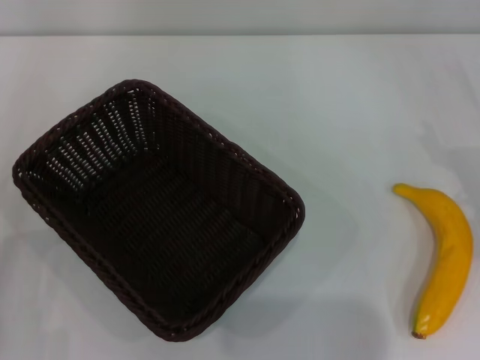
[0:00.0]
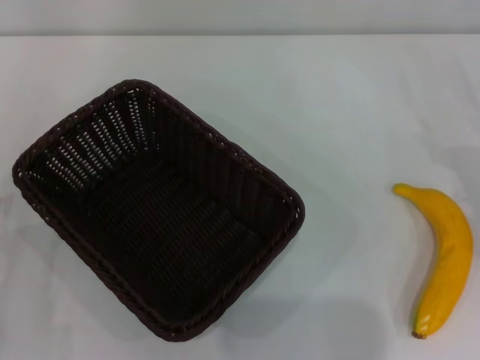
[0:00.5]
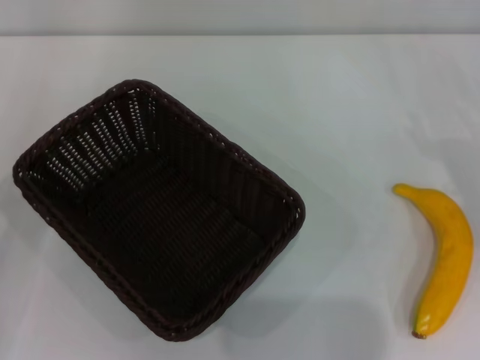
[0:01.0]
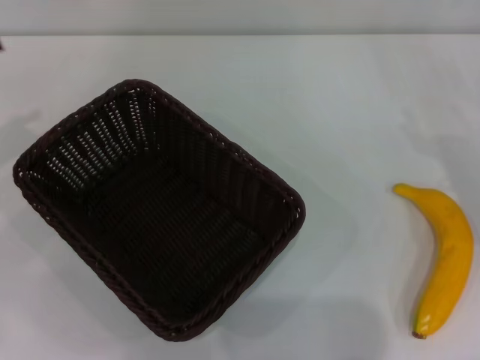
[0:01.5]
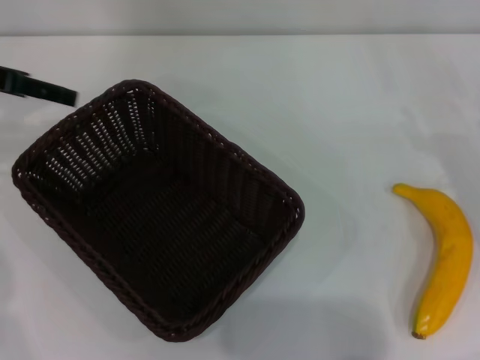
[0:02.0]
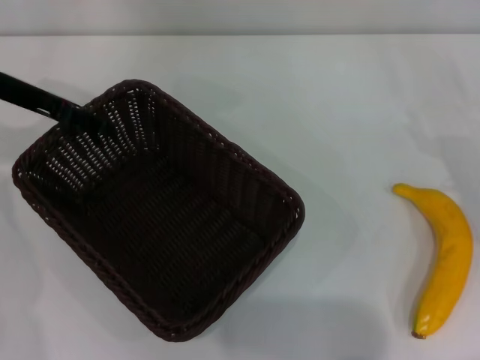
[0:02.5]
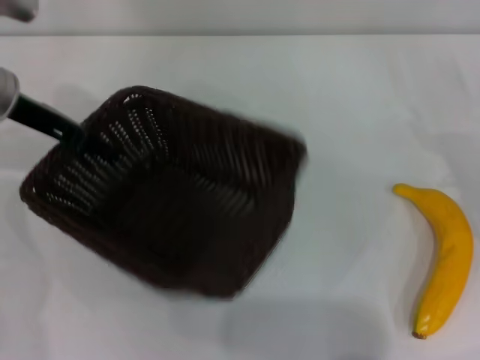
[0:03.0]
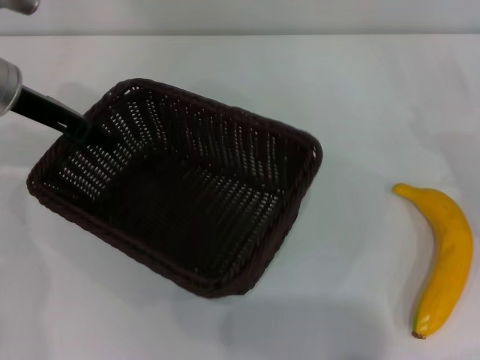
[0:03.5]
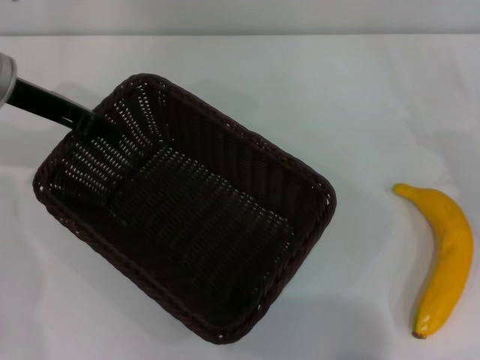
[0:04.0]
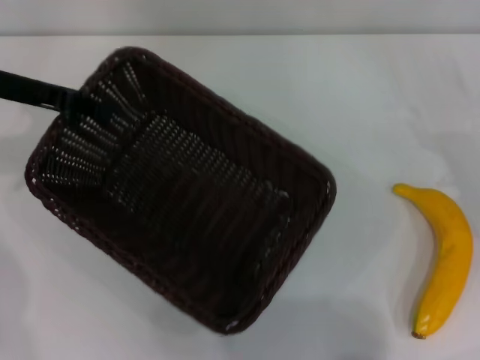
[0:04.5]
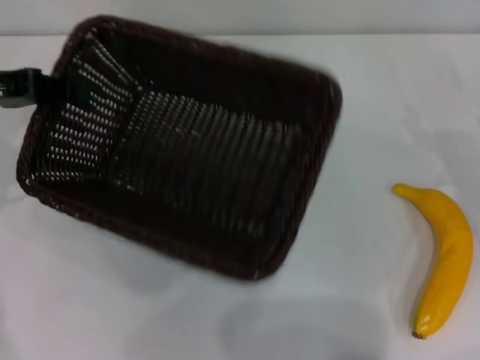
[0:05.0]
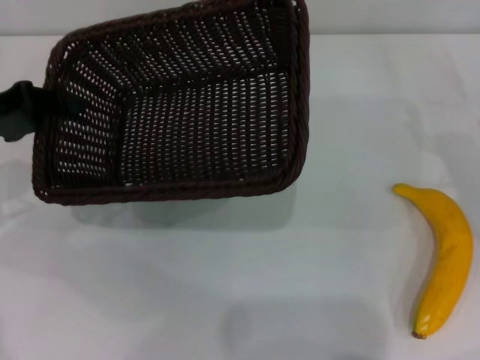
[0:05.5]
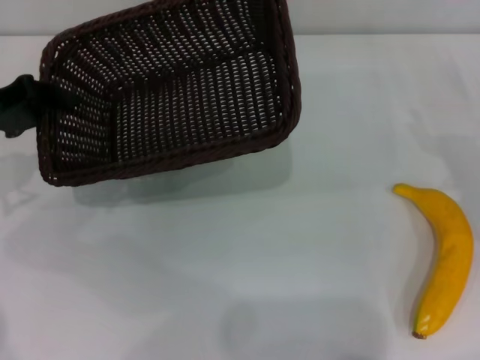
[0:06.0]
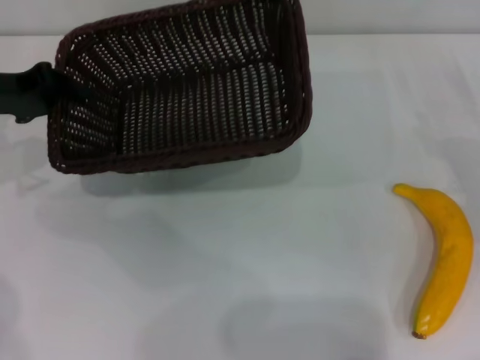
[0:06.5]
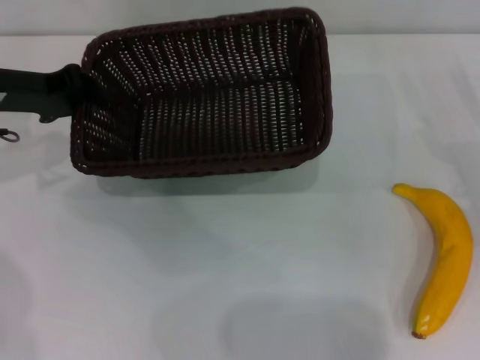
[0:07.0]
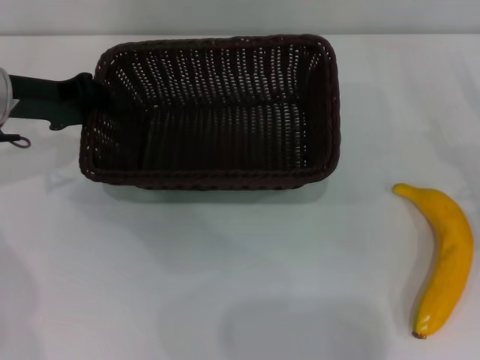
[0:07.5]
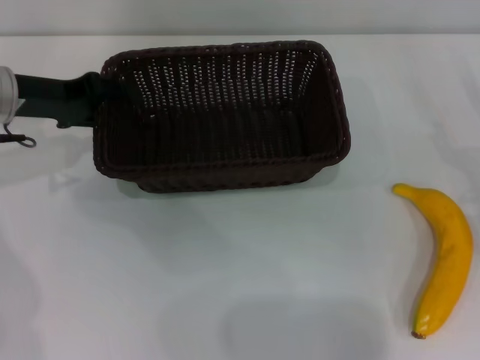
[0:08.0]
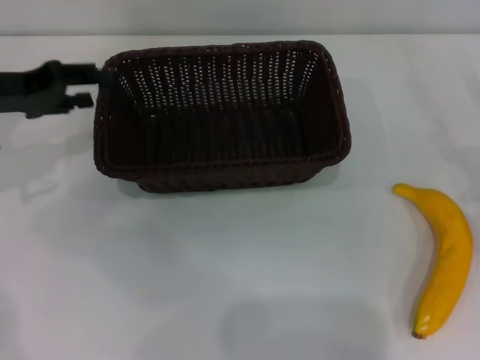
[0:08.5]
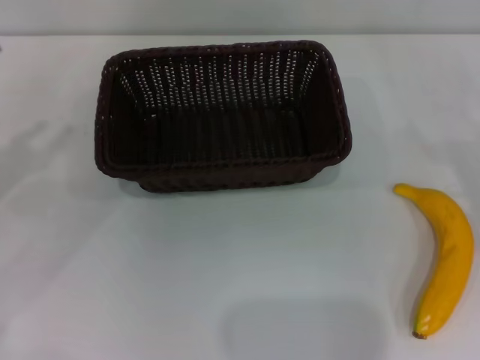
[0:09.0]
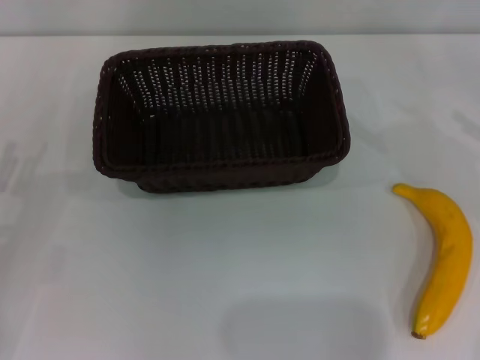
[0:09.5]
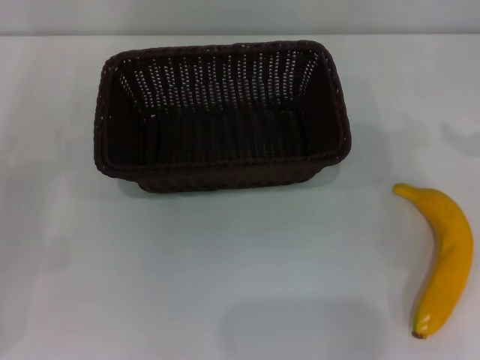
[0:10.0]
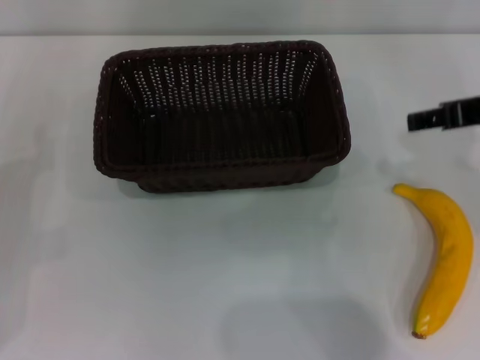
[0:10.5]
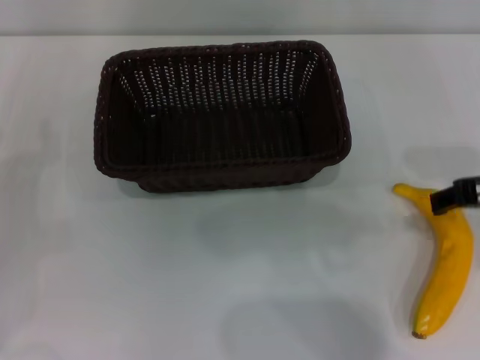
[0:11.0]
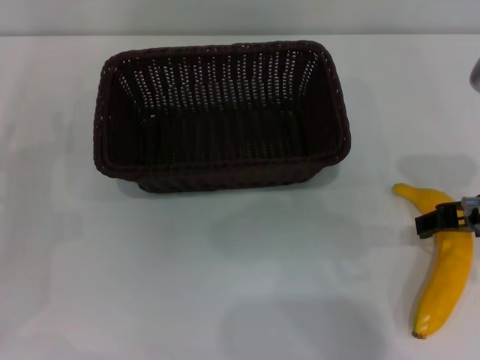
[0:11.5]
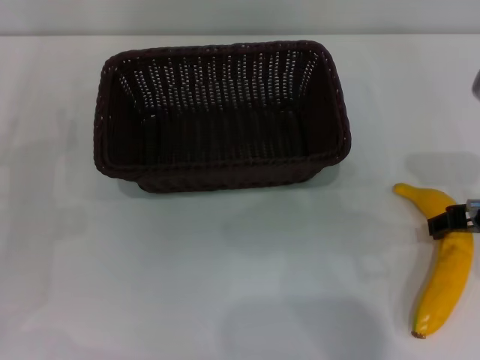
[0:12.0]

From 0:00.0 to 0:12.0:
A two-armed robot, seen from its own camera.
Step, from 0:00.0 to 0:05.0: Pick up the dark basket with the left gripper.
Step, from 0:05.5 to 0:08.5: Place the dark basket in the center of view with the left gripper.
From 0:00.0 to 0:02.0: The left gripper travels forward and upward by about 30 cm.
From 0:02.0 to 0:04.0: The left gripper heads to the right, covering roughly 5 cm, and closes its fingers.
From 0:04.0 to 0:06.0: The left gripper moves to the left, about 5 cm.
From 0:06.0 to 0:08.0: The left gripper is displaced to the right by some 5 cm, and opens.
From 0:08.0 to 0:10.0: The left gripper travels backward, to the left and downward by approximately 20 cm, and opens up.
From 0:10.0 to 0:12.0: The right gripper shifts about 15 cm to the left.

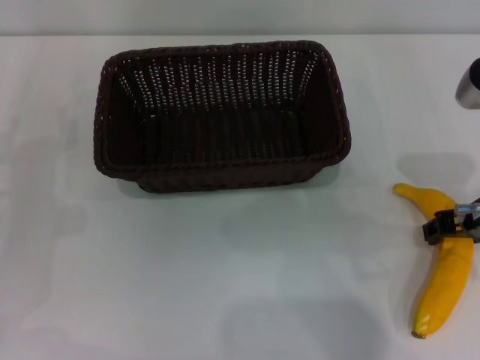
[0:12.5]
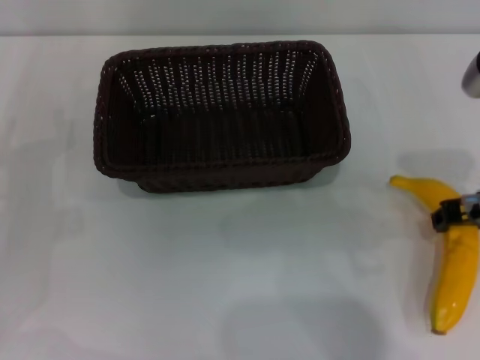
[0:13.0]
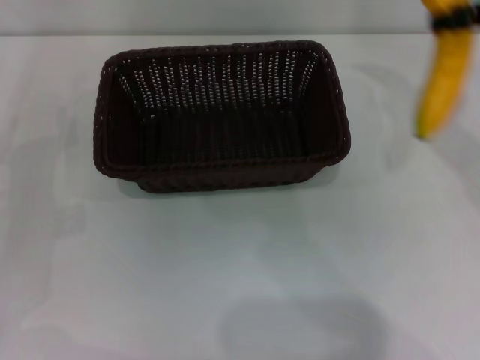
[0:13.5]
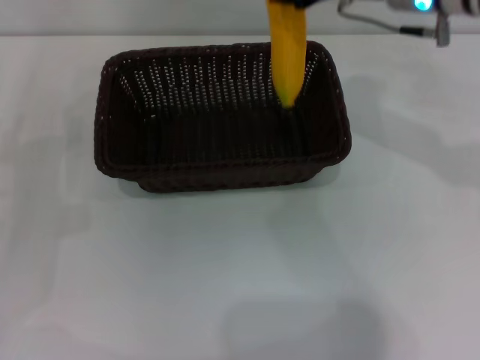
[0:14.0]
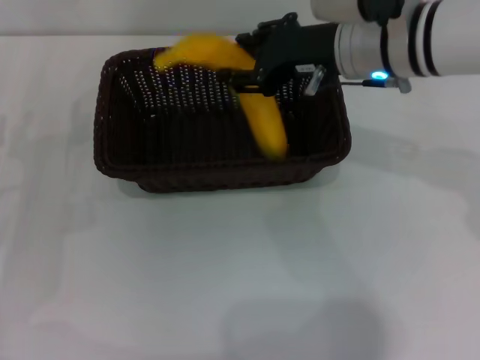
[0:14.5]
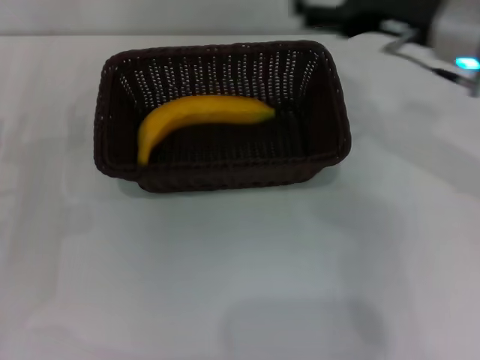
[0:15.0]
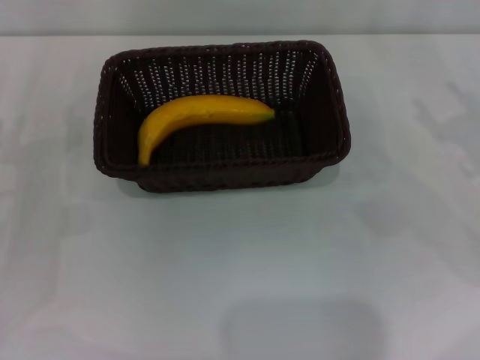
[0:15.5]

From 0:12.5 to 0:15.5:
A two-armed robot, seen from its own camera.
Step, from 0:13.5 to 0:14.5: Place the banana into the dark basket with the right gripper.
From 0:12.5 to 0:14.0: The right gripper heads forward, upward and to the left, covering roughly 15 cm, and closes its fingers.
From 0:14.0 to 0:15.5: The right gripper is displaced to the right, downward and backward by approximately 25 cm, and opens its fingers.
